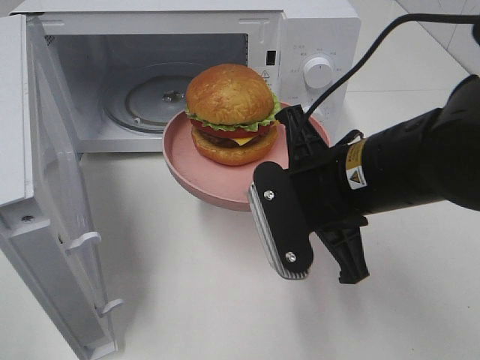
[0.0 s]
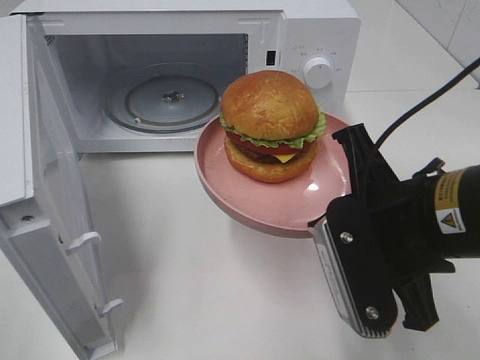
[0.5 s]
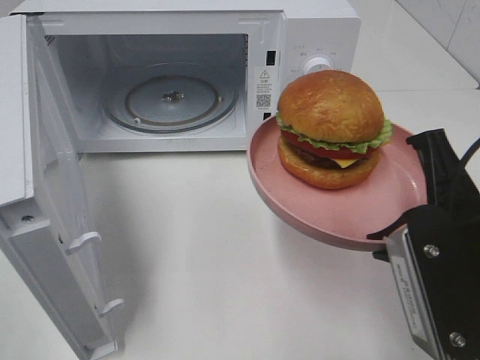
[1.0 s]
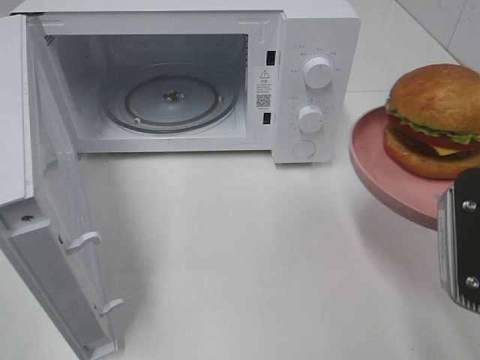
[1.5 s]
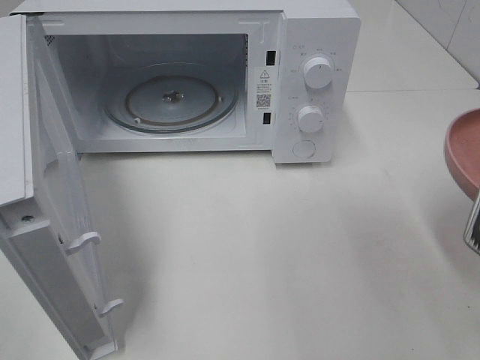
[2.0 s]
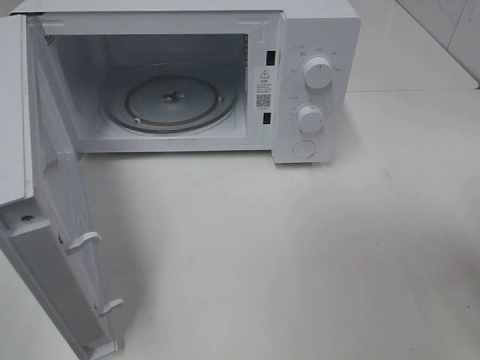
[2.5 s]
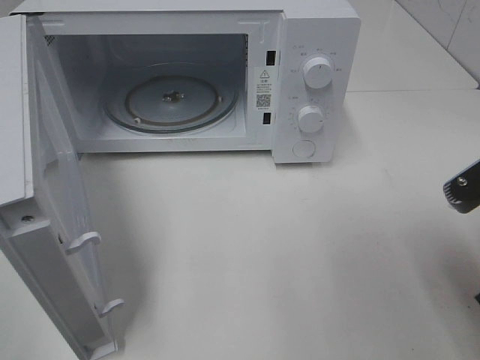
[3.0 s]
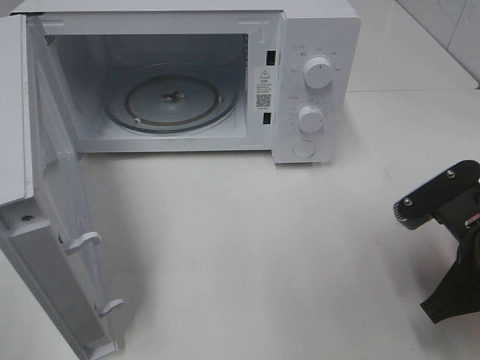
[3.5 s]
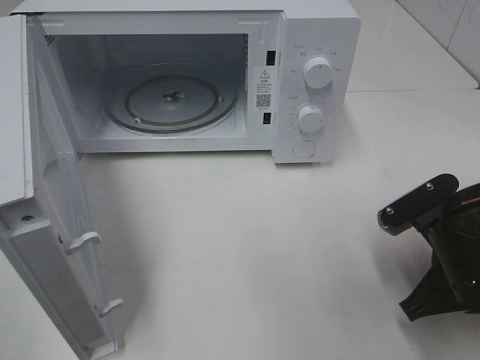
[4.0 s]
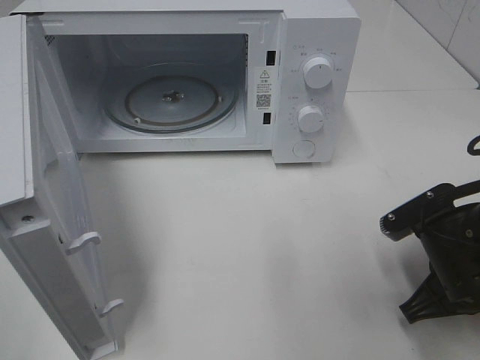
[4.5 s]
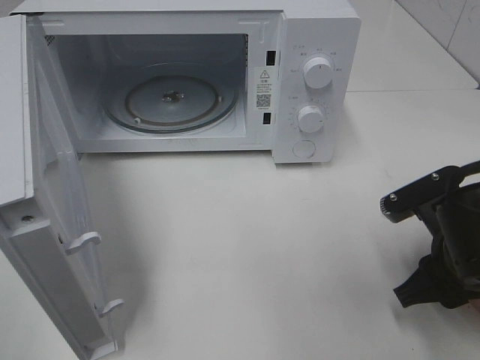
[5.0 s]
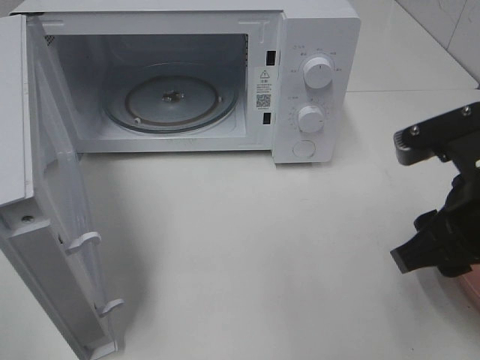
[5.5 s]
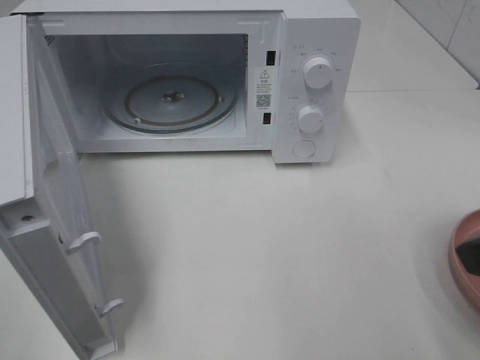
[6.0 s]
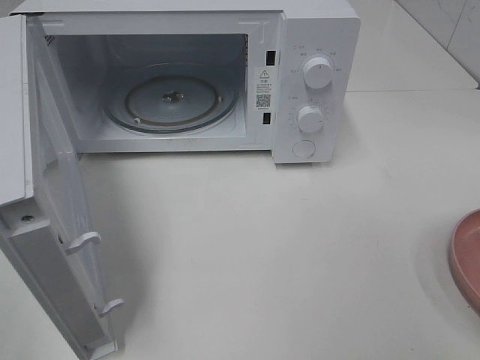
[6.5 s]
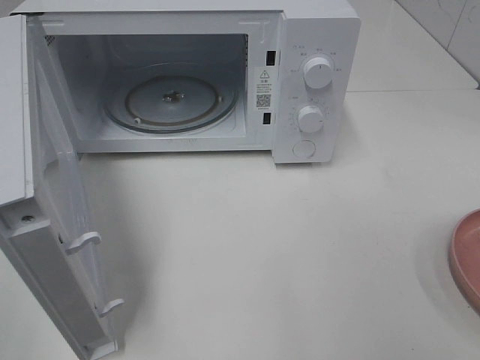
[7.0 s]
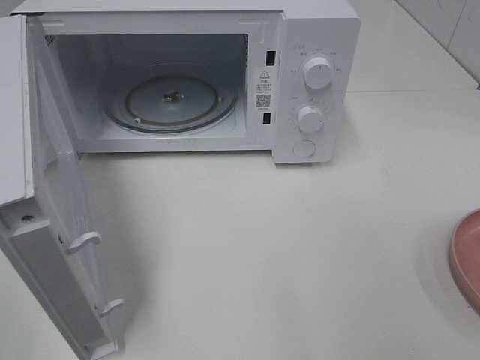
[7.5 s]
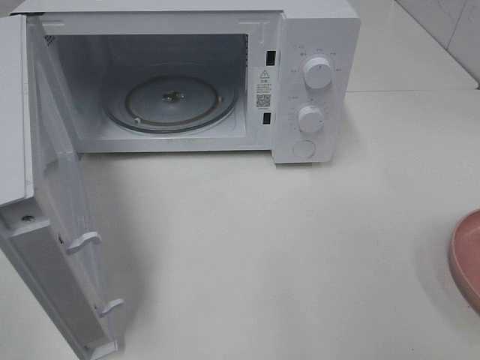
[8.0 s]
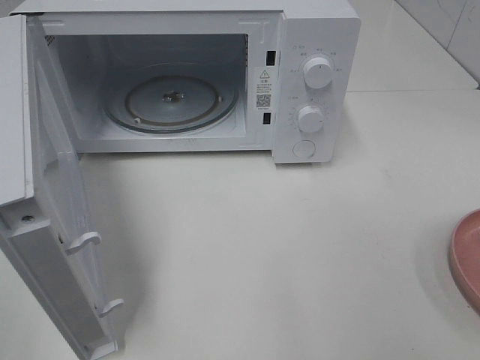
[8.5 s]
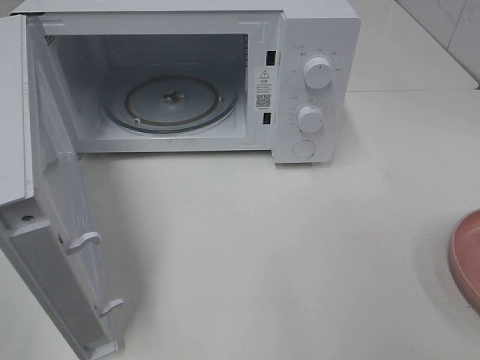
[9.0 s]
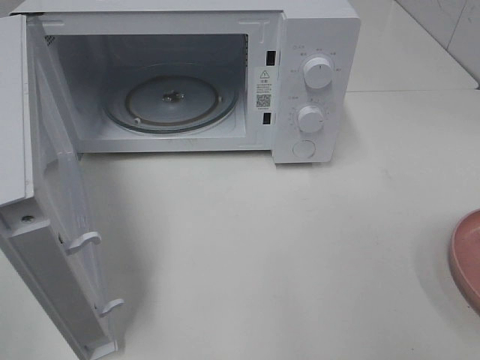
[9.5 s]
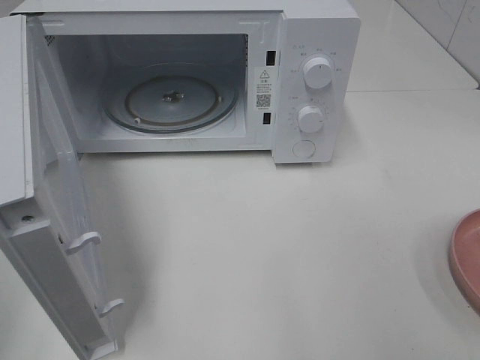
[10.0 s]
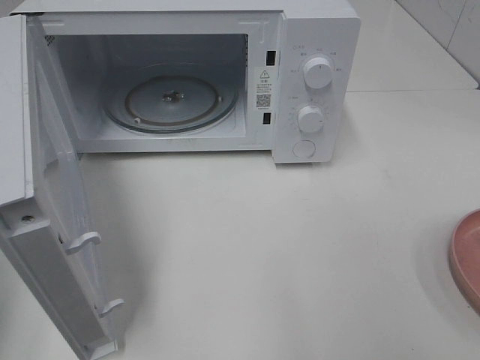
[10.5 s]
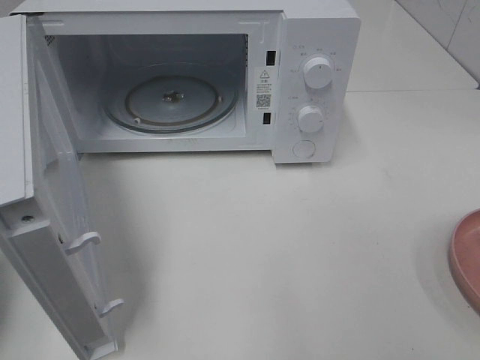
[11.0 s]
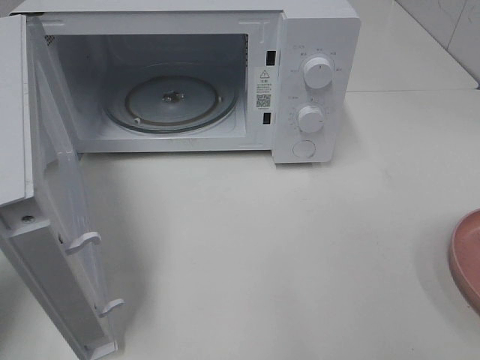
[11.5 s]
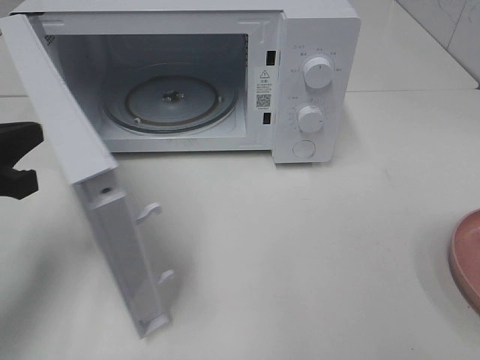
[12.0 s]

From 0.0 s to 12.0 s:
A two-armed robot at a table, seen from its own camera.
Task of the whole recording: Heat the burger.
Step, from 0.0 s to 4.5 s: Right hand: place the plate on the table.
From 0.0 s to 2.0 s: The right gripper goes some 15 cm to the right and backward.
From 2.0 s to 4.0 s: The right gripper travels downward by about 10 cm.
From 4.0 s to 6.0 s: The right gripper shifts some 15 cm upward, and opens.
From 6.0 s to 8.0 s: The right gripper goes some 15 cm backward and to the right.
From 10.0 s to 12.0 s: The left gripper moves forward, downward and to the right, about 20 cm.

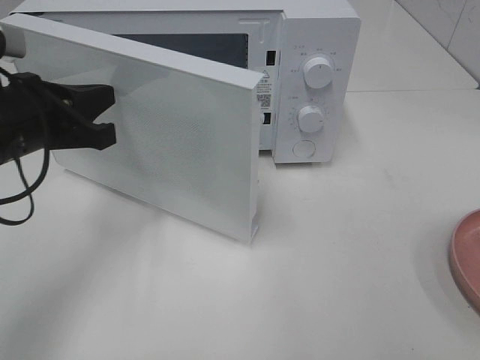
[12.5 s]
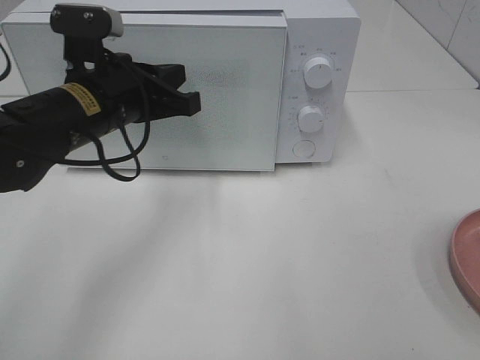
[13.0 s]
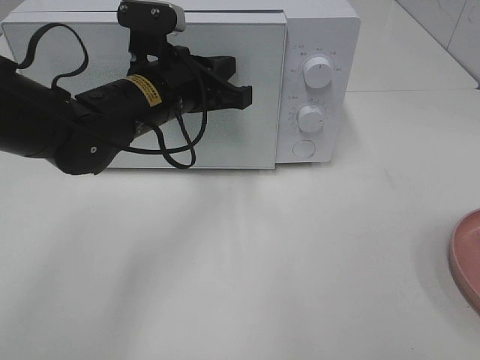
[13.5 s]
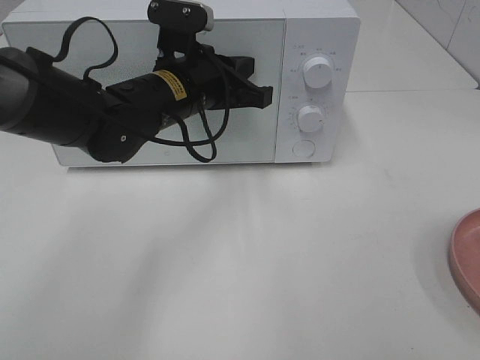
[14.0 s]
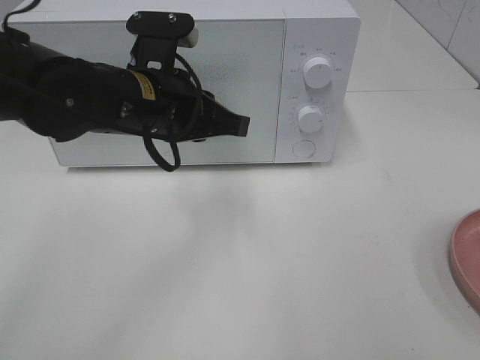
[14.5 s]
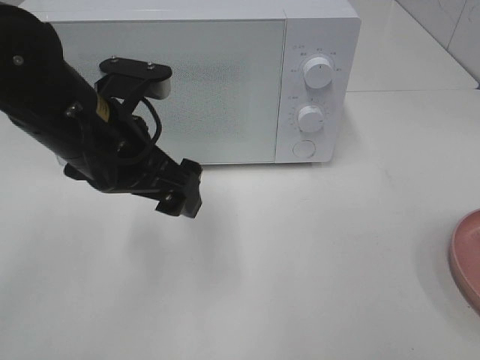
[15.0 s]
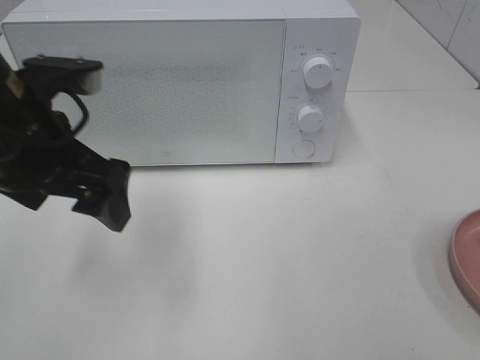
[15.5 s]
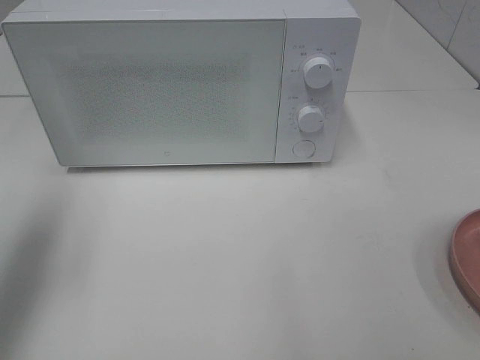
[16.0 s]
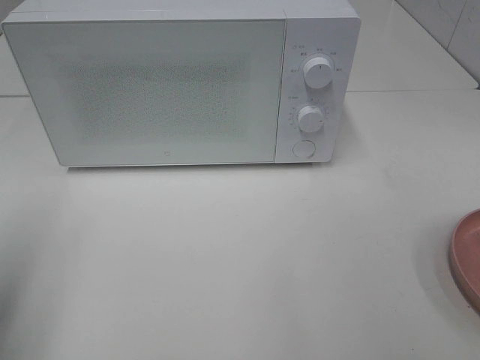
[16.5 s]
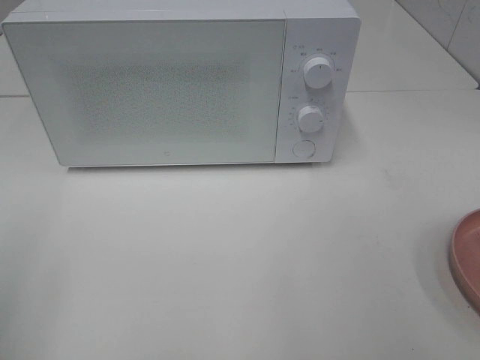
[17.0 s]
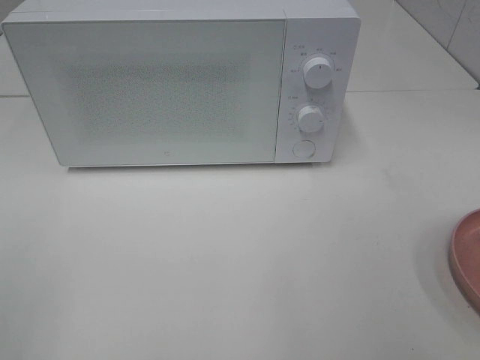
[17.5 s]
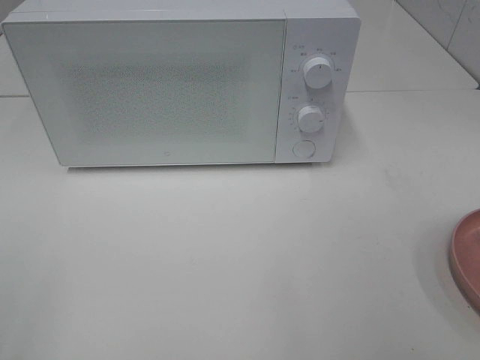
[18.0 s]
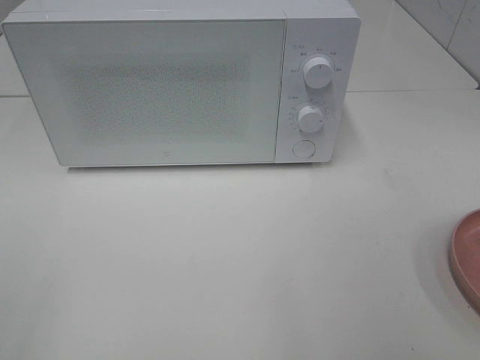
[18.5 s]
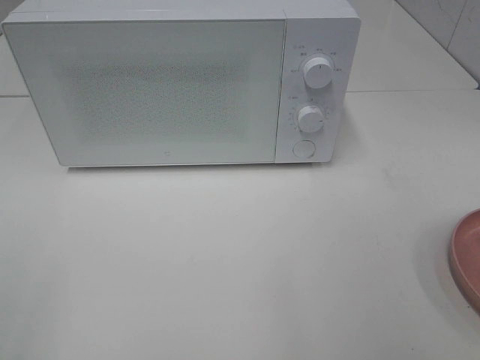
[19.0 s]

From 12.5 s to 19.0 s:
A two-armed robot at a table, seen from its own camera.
Task of the whole recording: Heat the burger.
From 12.5 s to 14.5 s: The left gripper is displaced to the right by about 10 cm.
From 14.5 s to 17.0 s: The left gripper goes approximately 35 cm to the left and backward, and opens its fingers.

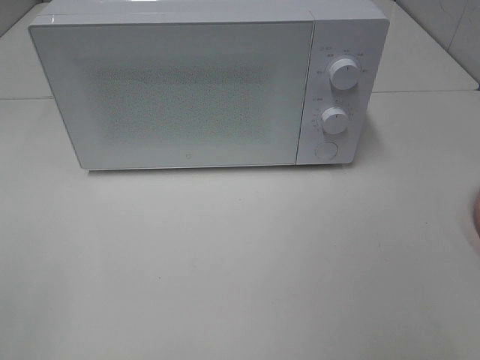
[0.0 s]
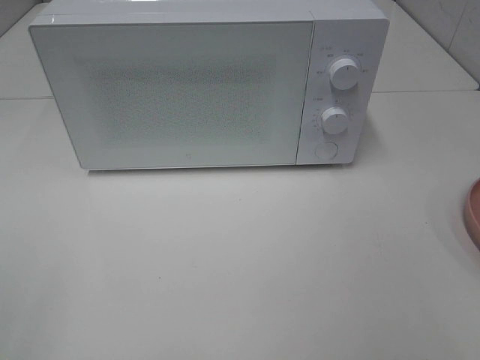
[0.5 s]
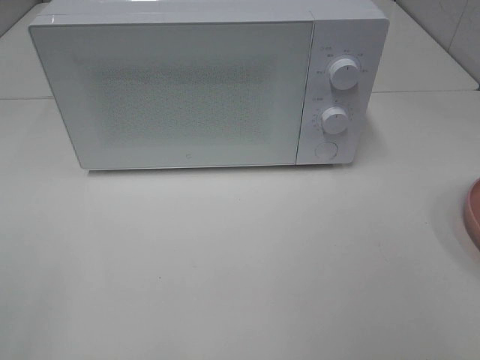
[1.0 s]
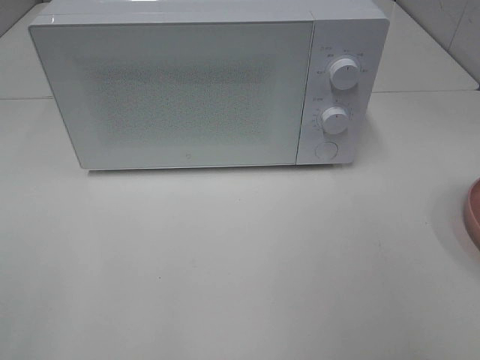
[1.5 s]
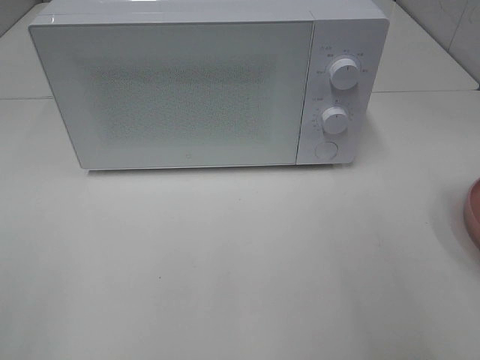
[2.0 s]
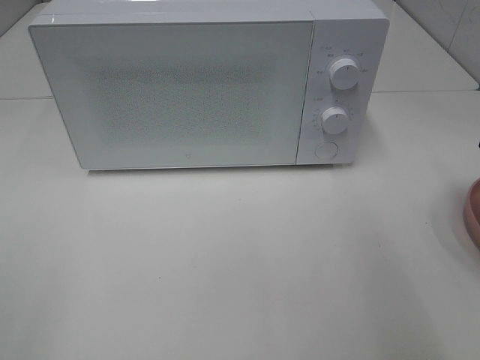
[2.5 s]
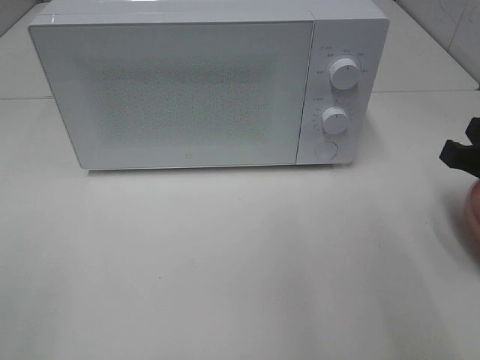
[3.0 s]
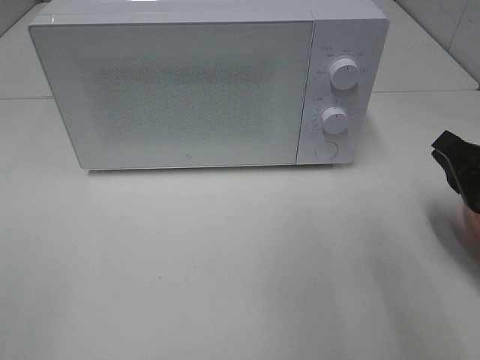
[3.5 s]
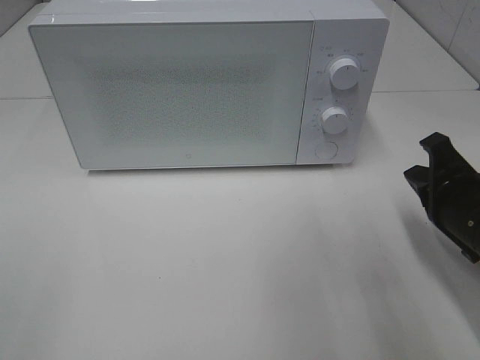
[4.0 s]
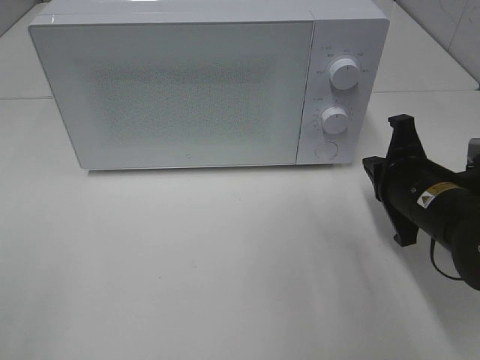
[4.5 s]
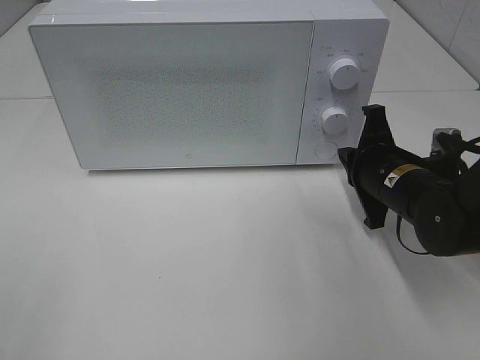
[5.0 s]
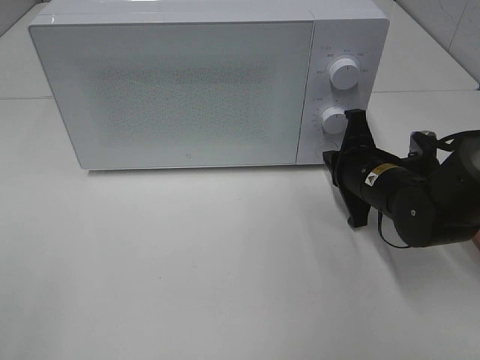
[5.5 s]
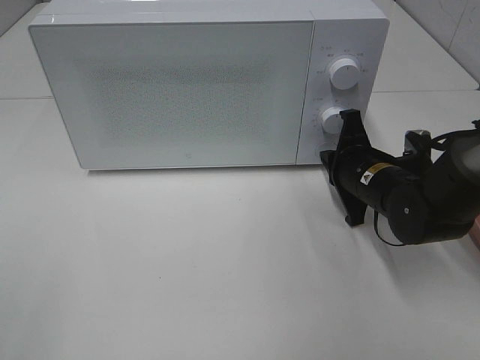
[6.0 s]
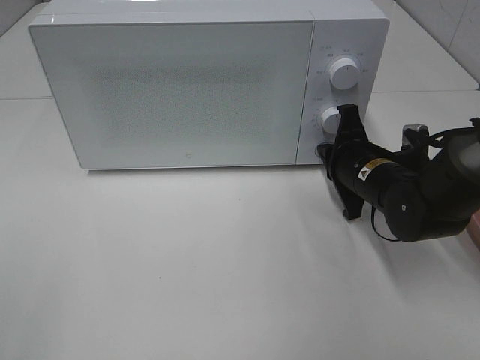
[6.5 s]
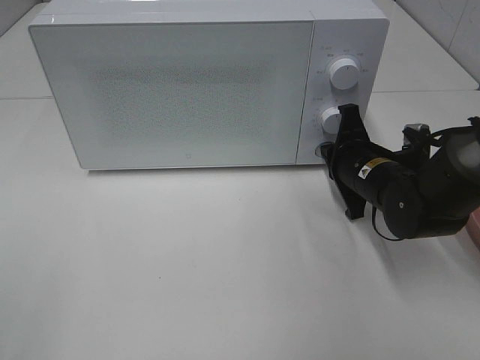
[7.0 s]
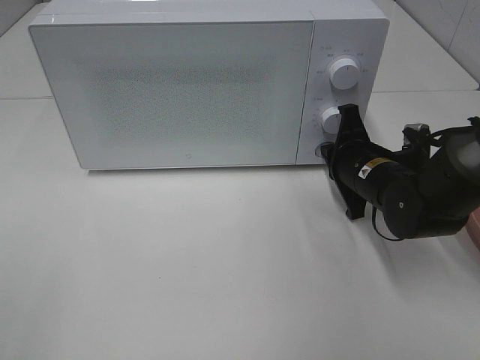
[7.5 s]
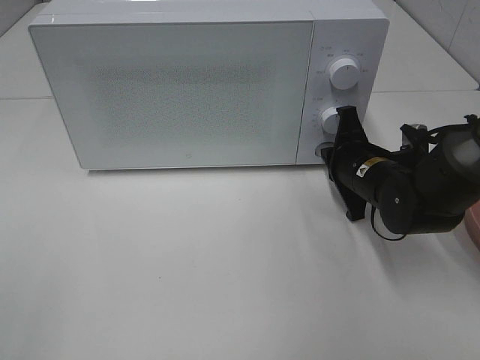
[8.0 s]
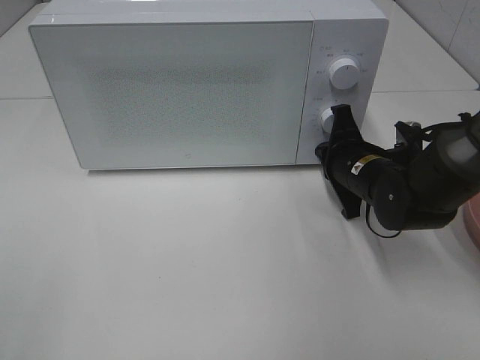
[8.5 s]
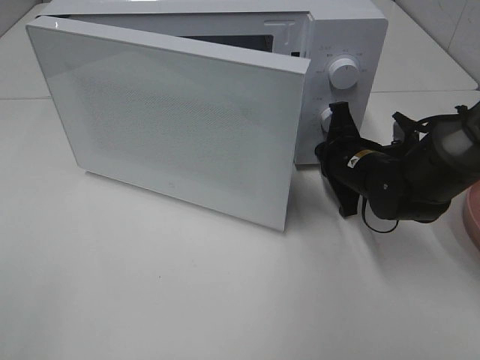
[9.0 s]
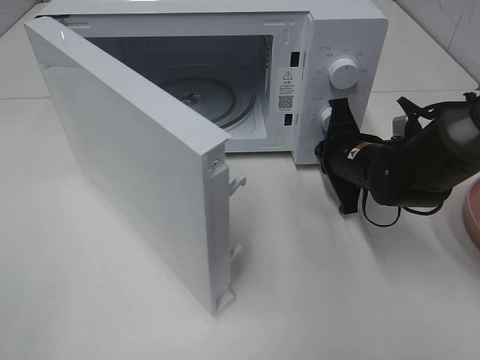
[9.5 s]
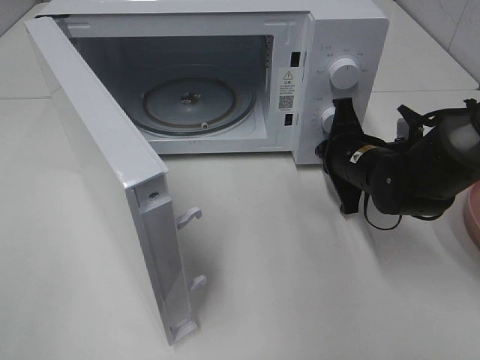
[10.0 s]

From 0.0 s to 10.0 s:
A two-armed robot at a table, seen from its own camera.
Task of the whole recording: Heat the burger.
From 0.0 s to 2.0 s: The right gripper is displaced forward by approximately 15 cm.
From 2.0 s to 4.0 s: The right gripper shifts approximately 15 cm downward and forward, and closes up.
From 4.0 s to 6.0 s: The right gripper travels forward, to the left and downward by some 15 cm.
From 6.0 s to 8.0 s: Both grippers stay put.
